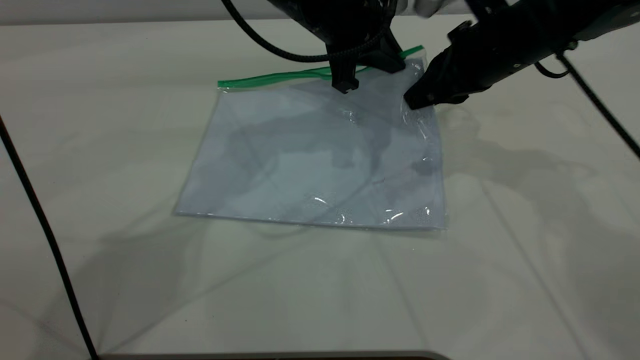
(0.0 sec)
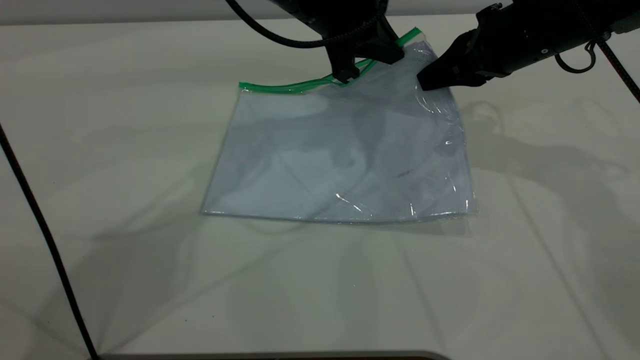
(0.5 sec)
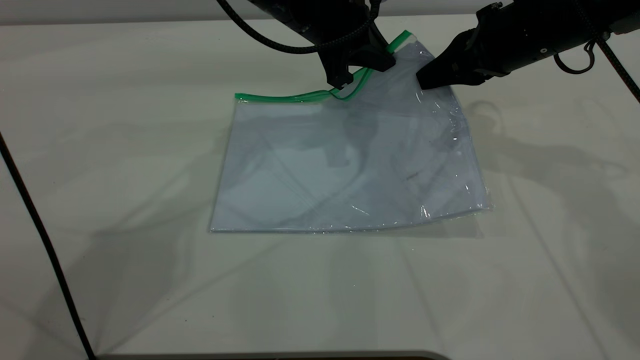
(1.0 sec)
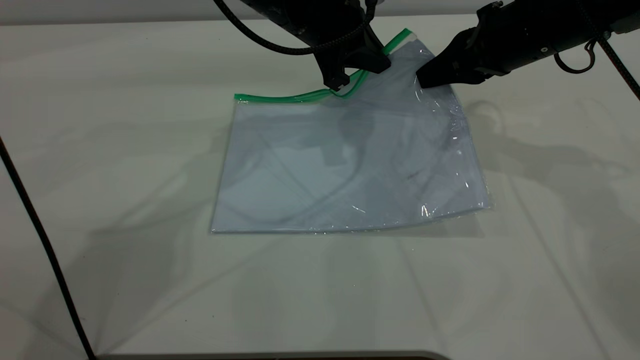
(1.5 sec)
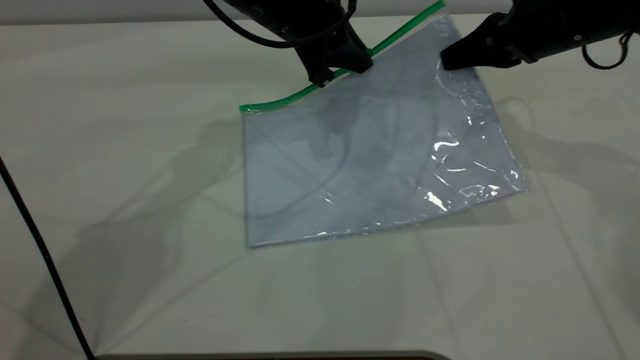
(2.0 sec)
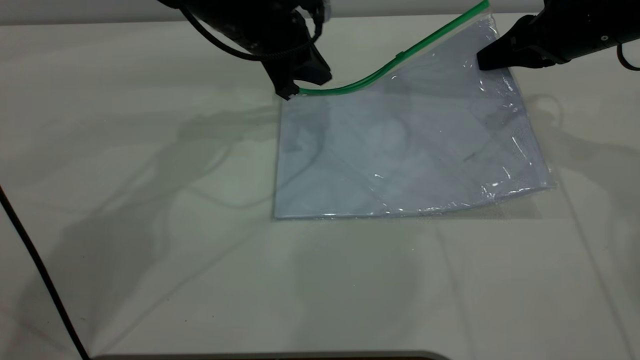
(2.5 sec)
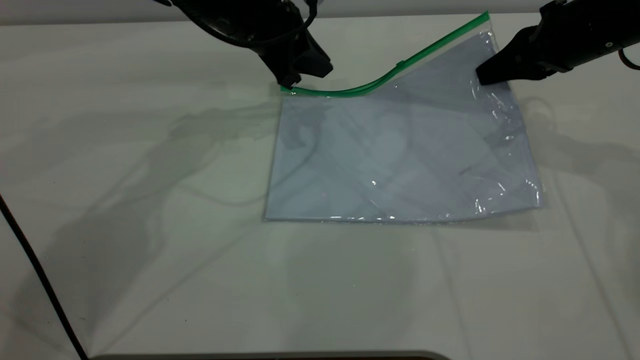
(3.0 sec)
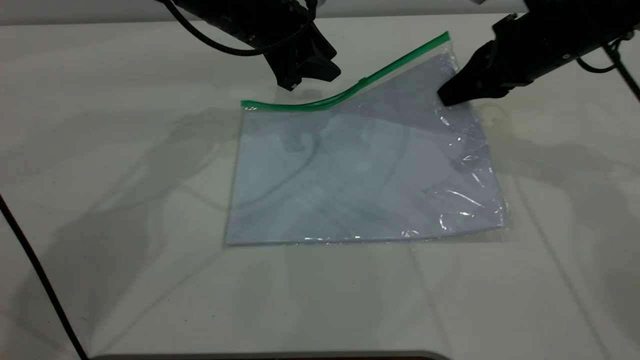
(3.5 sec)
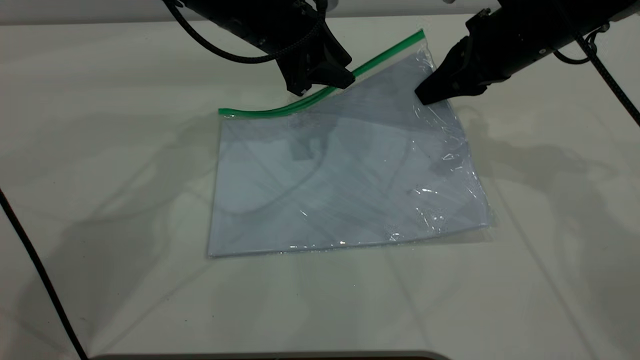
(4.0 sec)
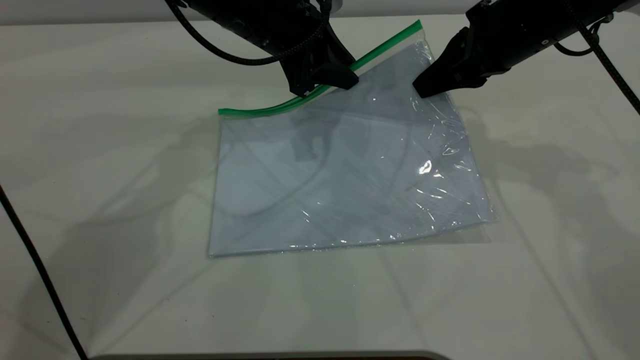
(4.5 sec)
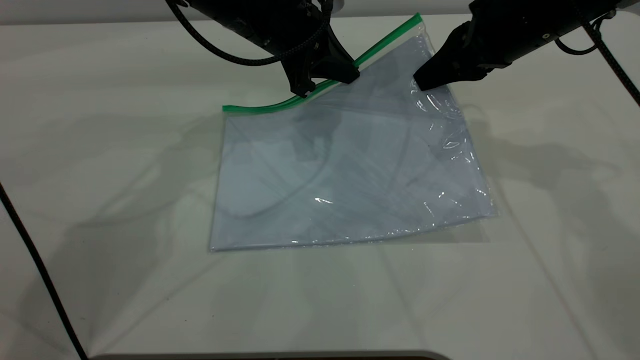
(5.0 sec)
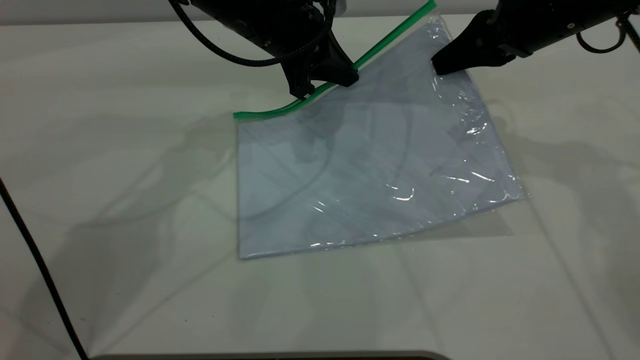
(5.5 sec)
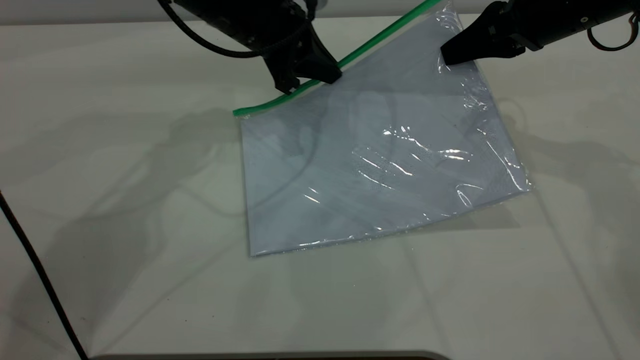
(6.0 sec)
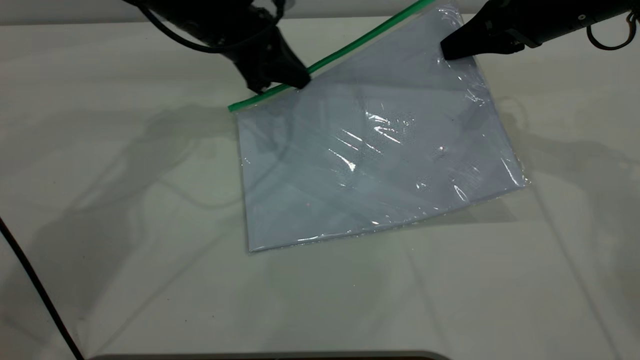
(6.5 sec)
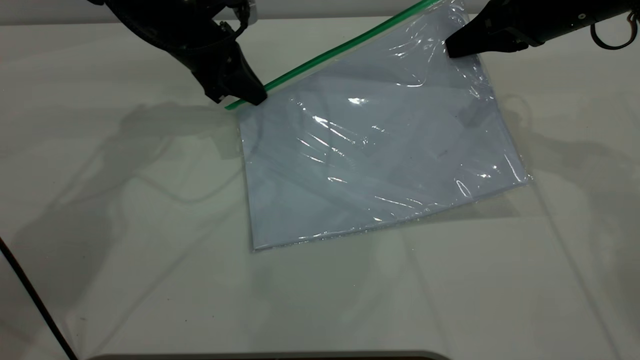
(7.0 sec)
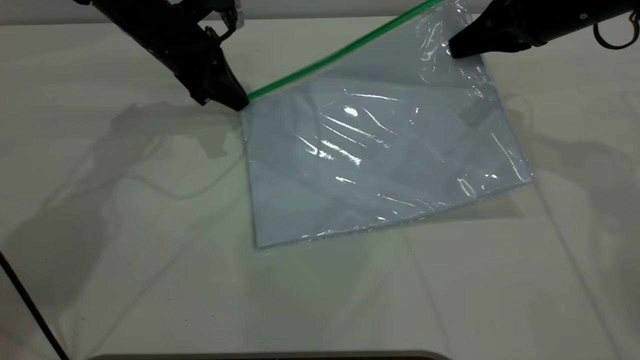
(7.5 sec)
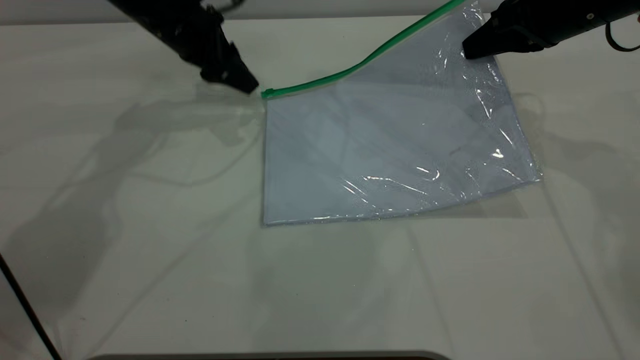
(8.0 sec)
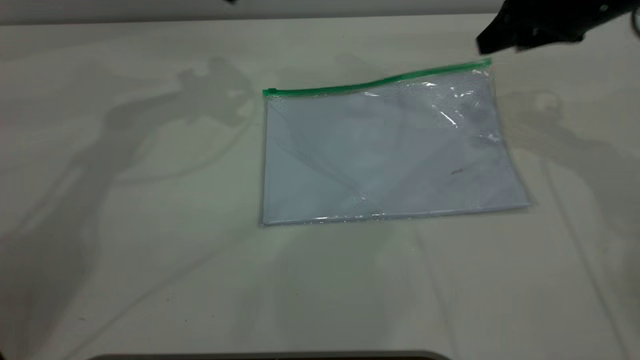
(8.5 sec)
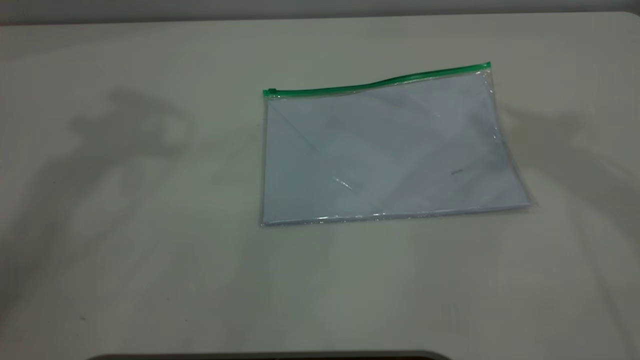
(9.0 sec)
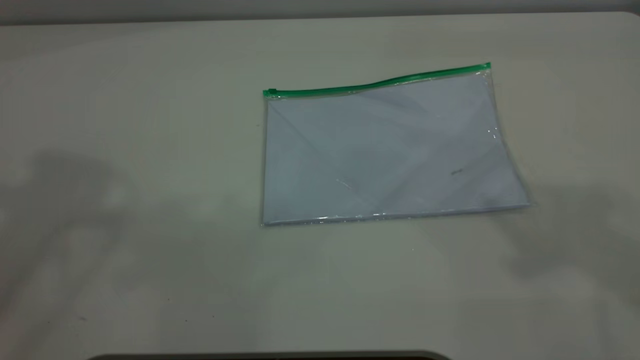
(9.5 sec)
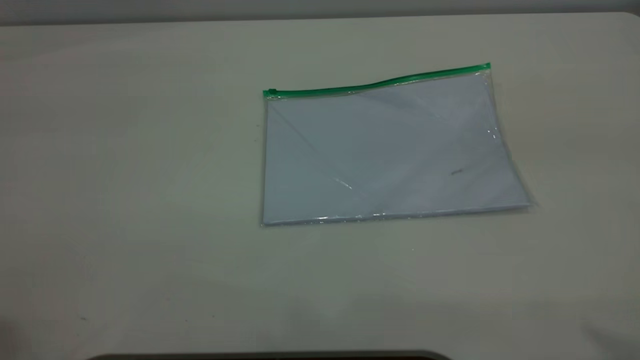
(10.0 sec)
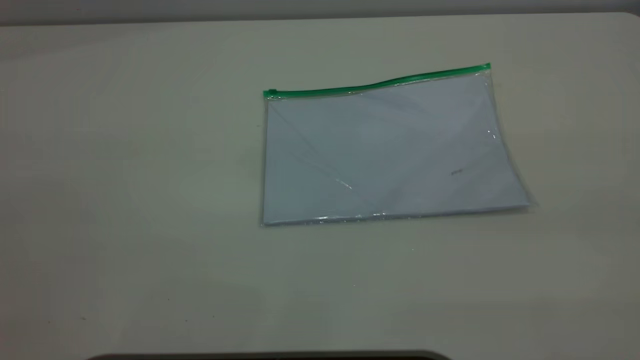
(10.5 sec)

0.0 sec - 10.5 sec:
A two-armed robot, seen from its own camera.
Step, 0.0 sec - 7.5 sec: Pulling up the zipper on the transparent plastic bag with the left gripper to close it.
Step, 8.0 sec - 8.5 sec: Place the transparent plastic bag.
0.0 sec - 2.0 sec: The left gripper changes place by about 5 cm; the right gripper goes about 5 cm to the right.
2.0 sec - 4.0 sec: The left gripper opens up. The right gripper shifts approximately 5 cm to the left.
4.0 sec - 6.5 sec: The left gripper shifts some 5 cm to the left, and closes its fingers.
6.5 sec - 8.5 sec: The left gripper moves upward, roughly 15 cm, and opens. Meanwhile the right gripper opens up.
8.5 sec - 10.5 sec: The right gripper shifts some 40 cm backward and upward.
